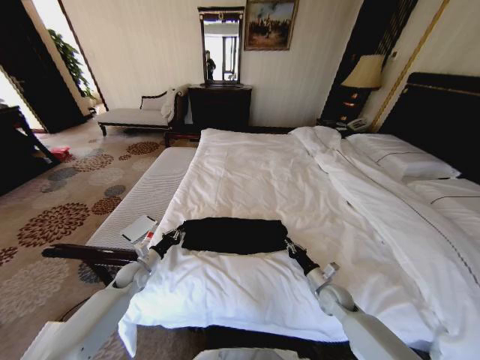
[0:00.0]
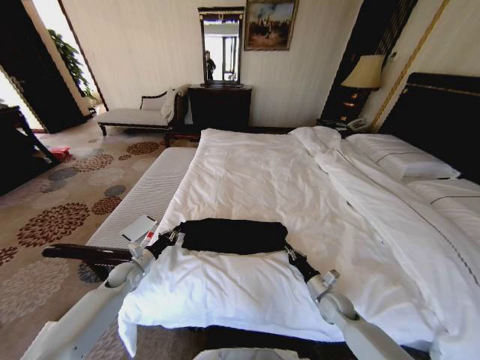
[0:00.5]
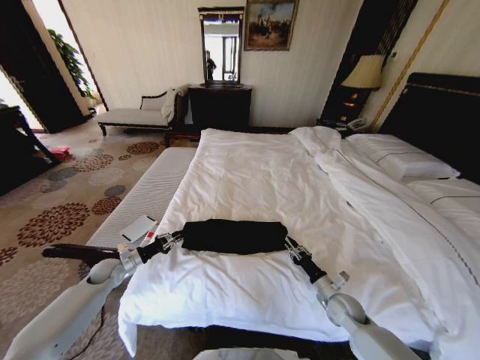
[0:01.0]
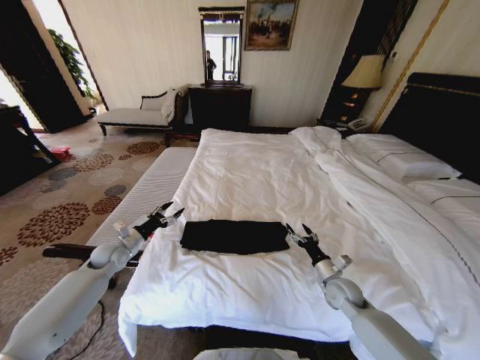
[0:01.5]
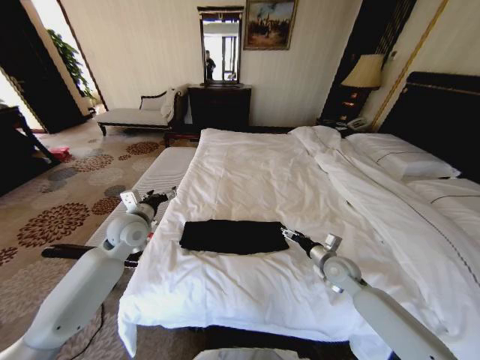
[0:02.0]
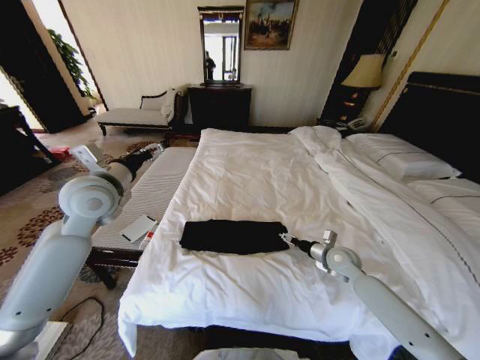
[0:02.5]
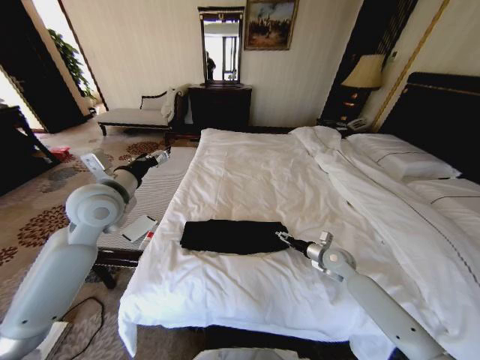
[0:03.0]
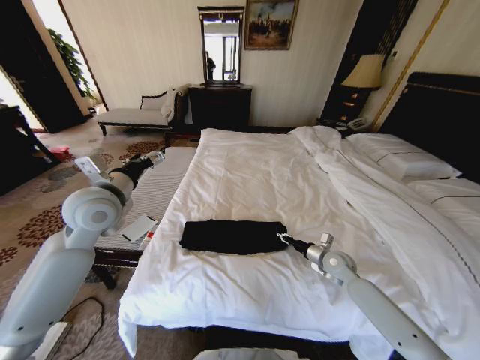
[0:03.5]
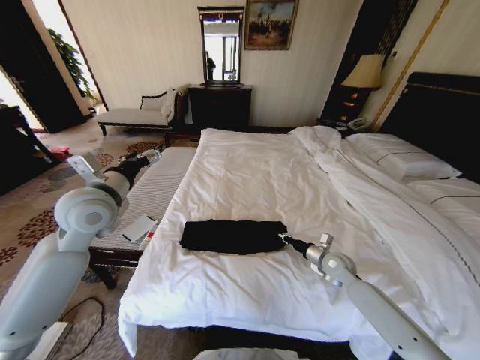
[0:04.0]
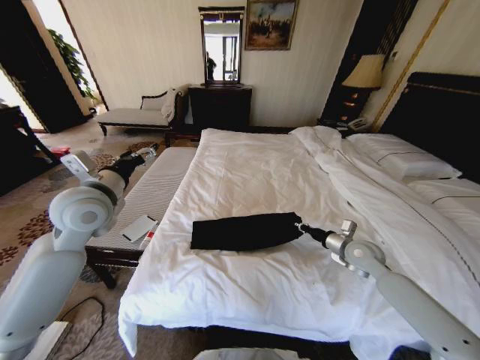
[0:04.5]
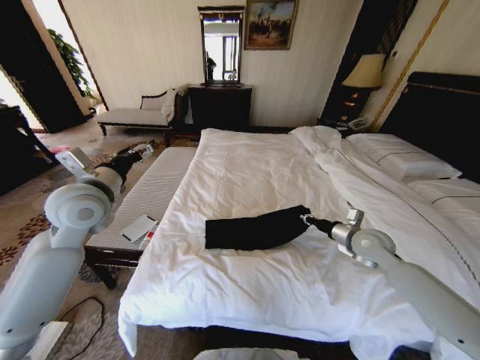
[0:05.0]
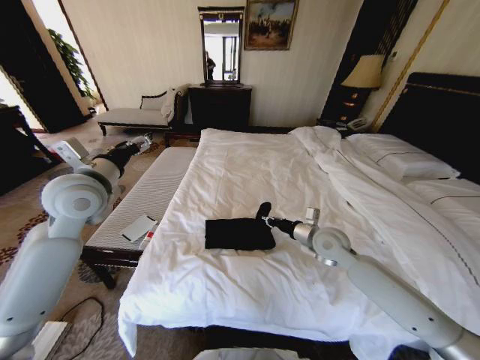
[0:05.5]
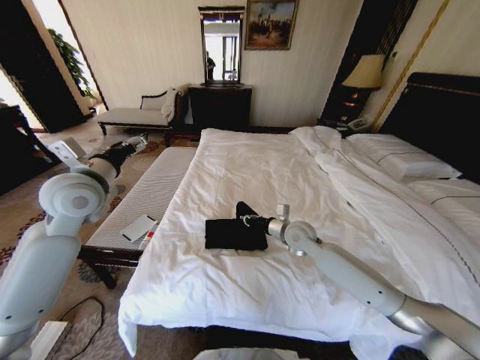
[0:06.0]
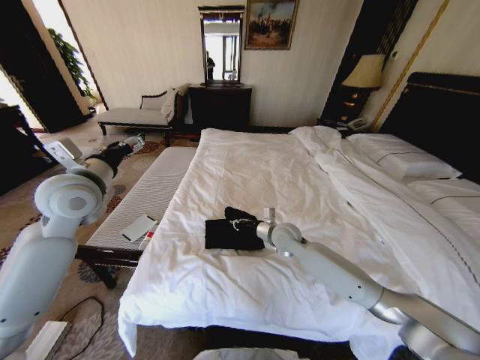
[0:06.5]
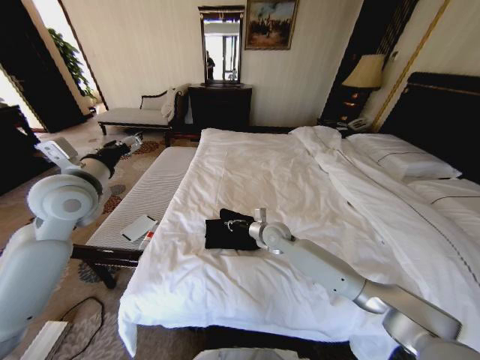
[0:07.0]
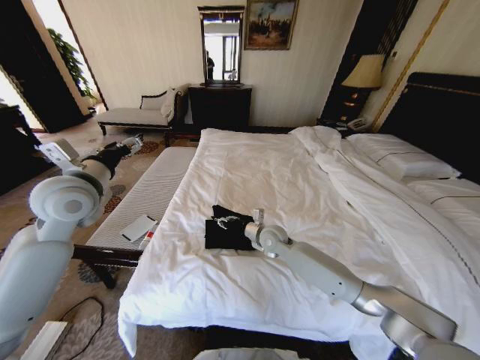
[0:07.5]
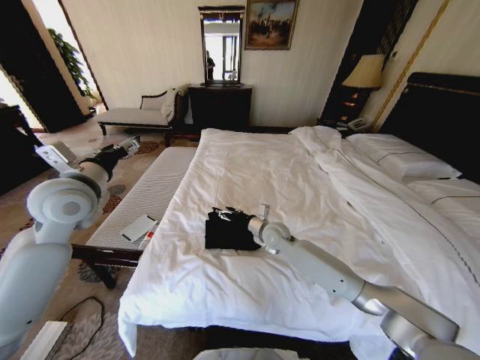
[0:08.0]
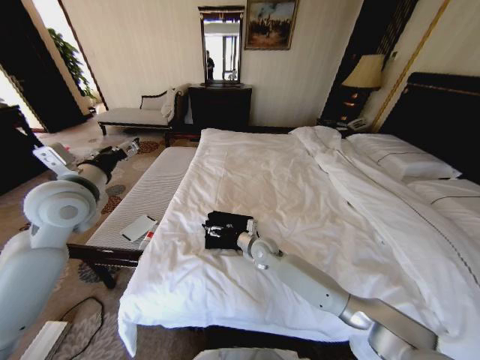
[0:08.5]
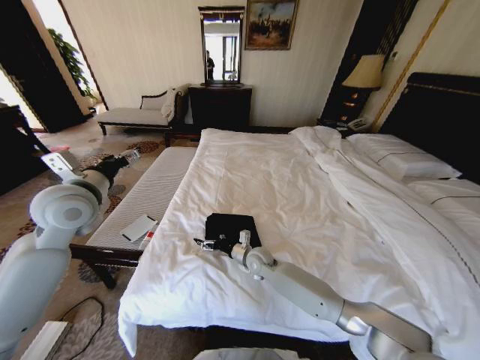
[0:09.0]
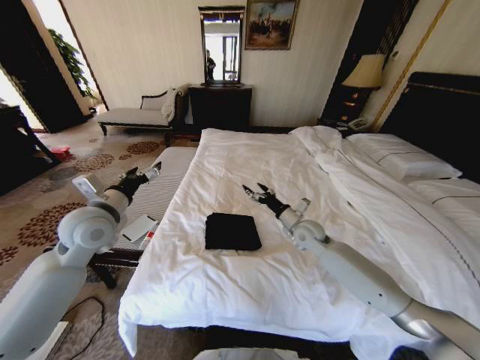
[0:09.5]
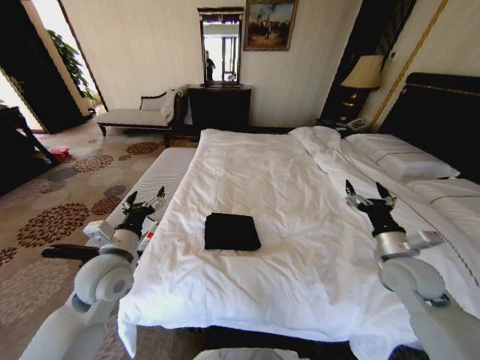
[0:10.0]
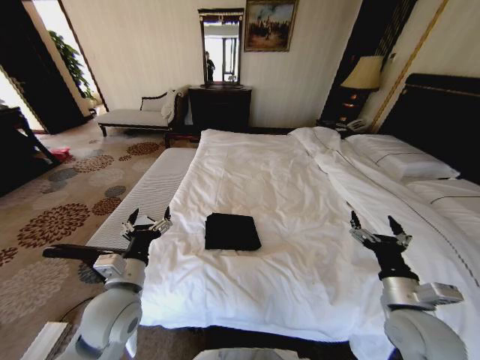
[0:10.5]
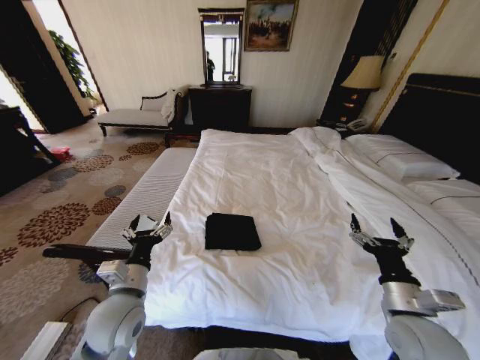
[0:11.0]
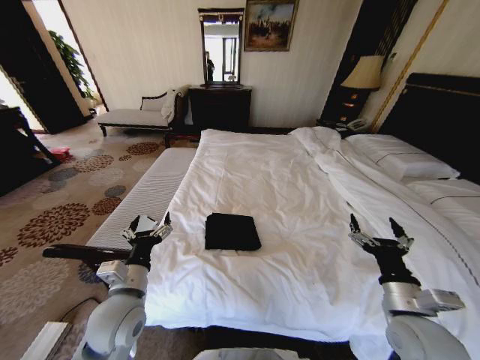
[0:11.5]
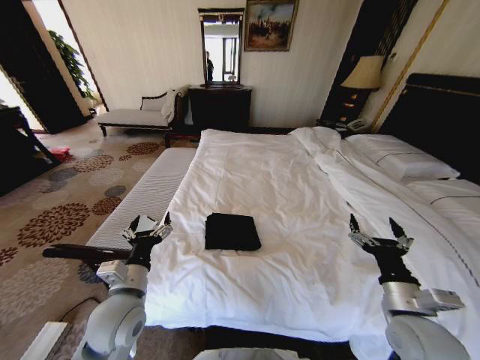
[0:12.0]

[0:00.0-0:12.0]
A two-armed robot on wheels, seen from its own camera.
Task of the whole recording: Fold the clothes on the bed.
0:00.0 to 0:02.0: The left gripper shifts some 25 cm upward, and opens up, while the right gripper travels upward by approximately 10 cm, and opens up.
0:02.0 to 0:04.0: The left gripper goes about 15 cm upward. Meanwhile the right gripper closes.
0:04.0 to 0:06.0: The right gripper travels to the left and upward by roughly 20 cm.
0:06.0 to 0:08.0: The right gripper heads to the left, covering approximately 5 cm, and opens its fingers.
0:08.0 to 0:10.0: The right gripper moves to the right and backward, about 30 cm. The left gripper travels downward and backward by about 15 cm.
0:10.0 to 0:12.0: The right gripper moves backward and to the left, about 15 cm, while the left gripper shifts approximately 5 cm backward.

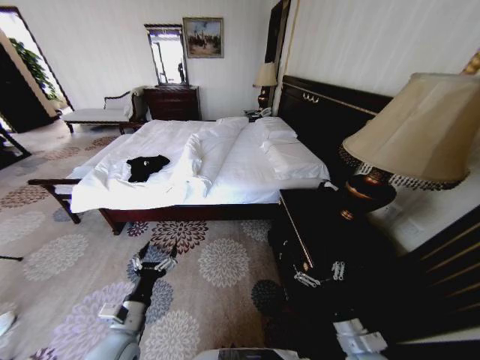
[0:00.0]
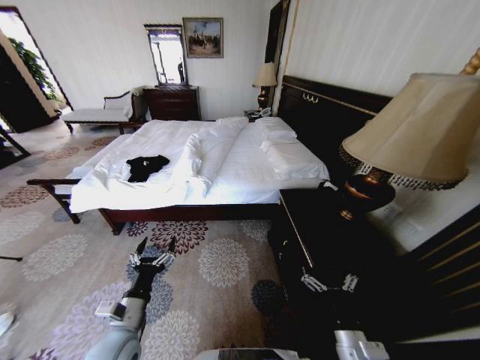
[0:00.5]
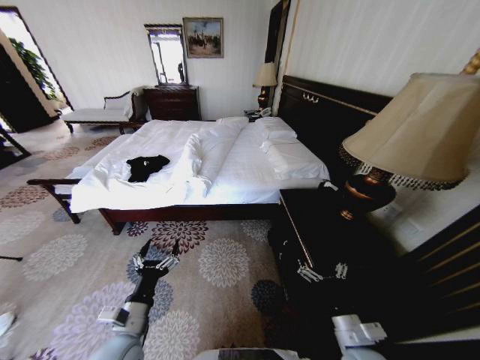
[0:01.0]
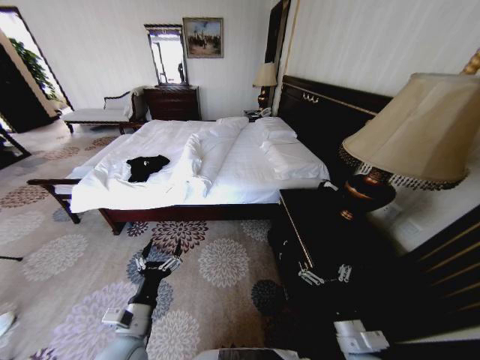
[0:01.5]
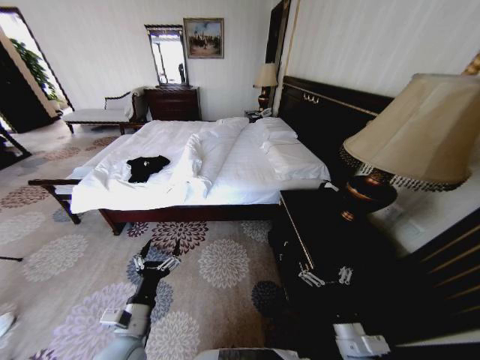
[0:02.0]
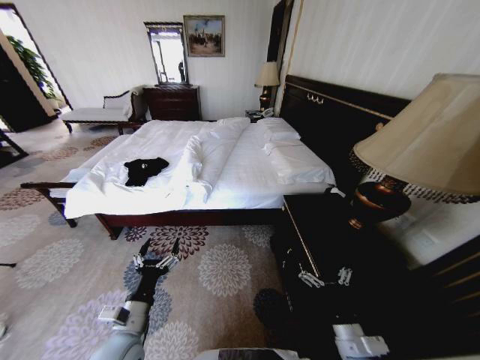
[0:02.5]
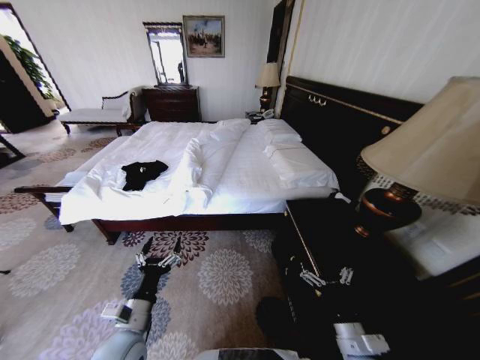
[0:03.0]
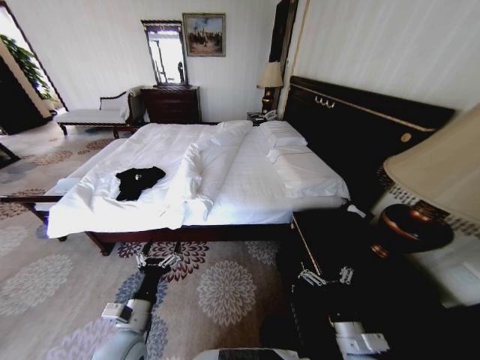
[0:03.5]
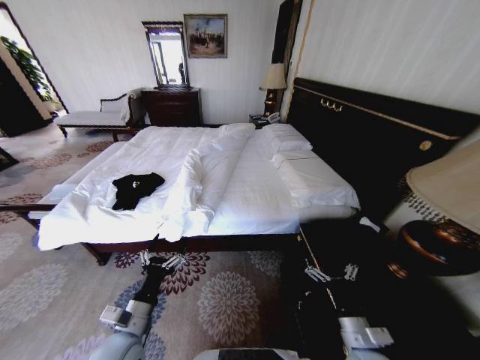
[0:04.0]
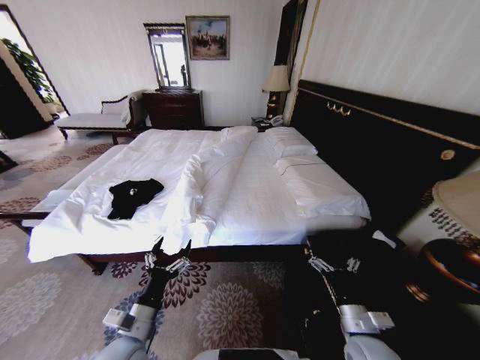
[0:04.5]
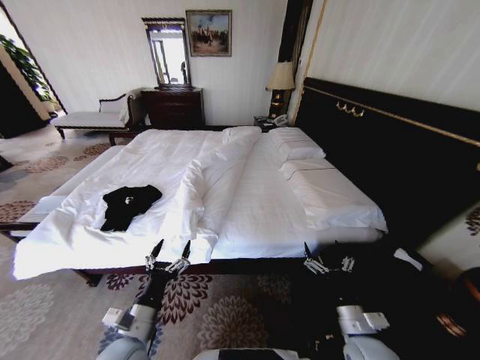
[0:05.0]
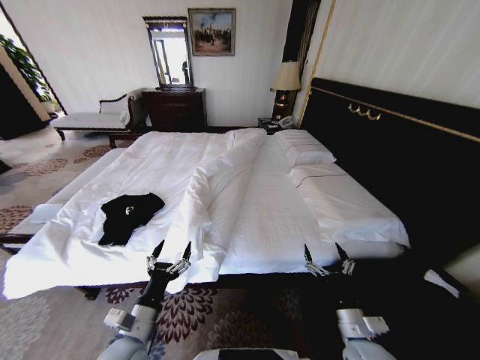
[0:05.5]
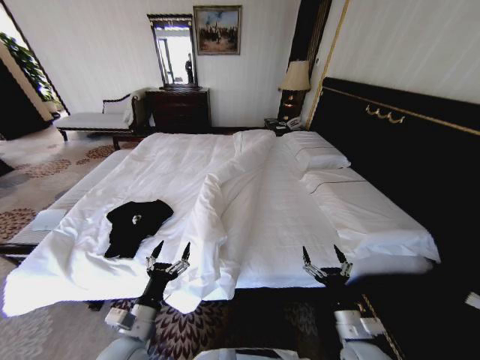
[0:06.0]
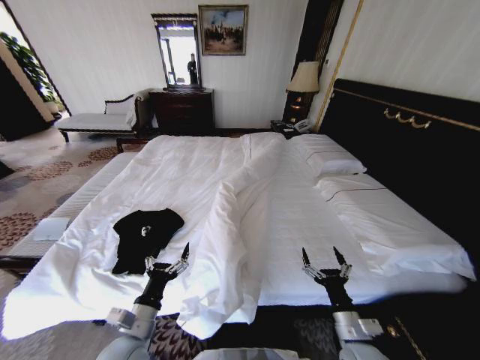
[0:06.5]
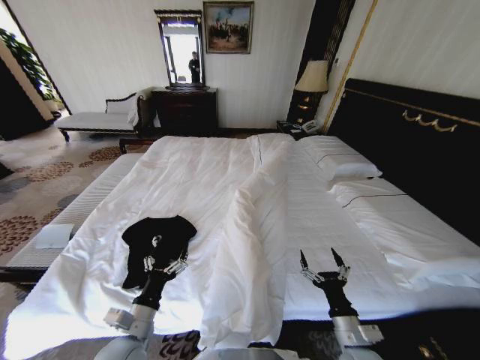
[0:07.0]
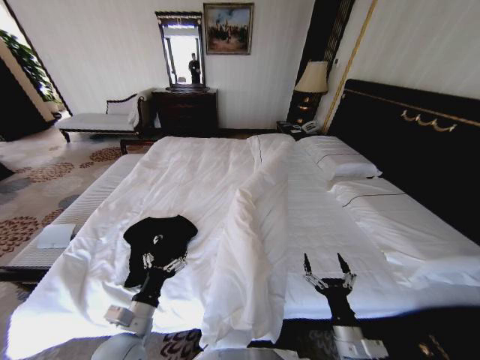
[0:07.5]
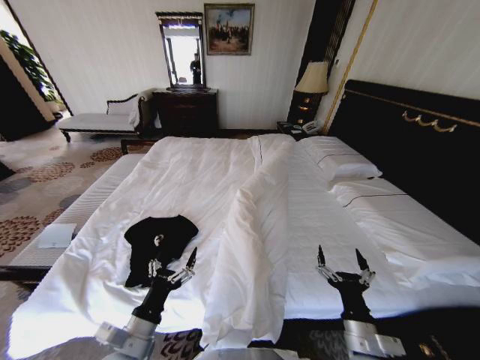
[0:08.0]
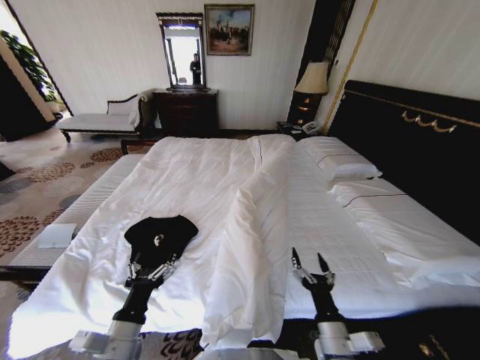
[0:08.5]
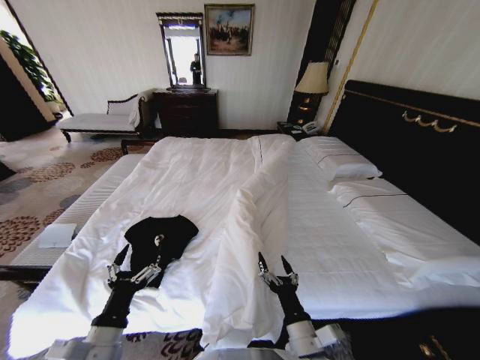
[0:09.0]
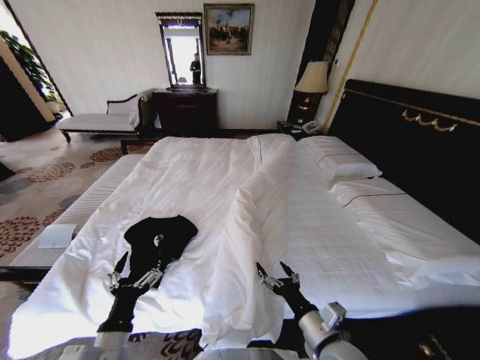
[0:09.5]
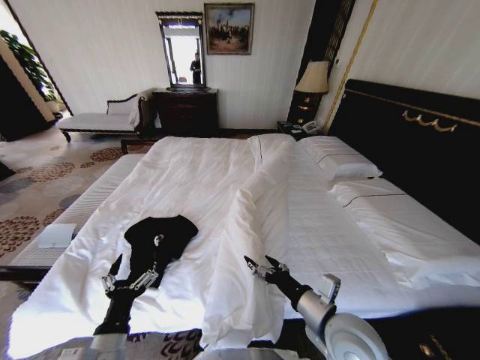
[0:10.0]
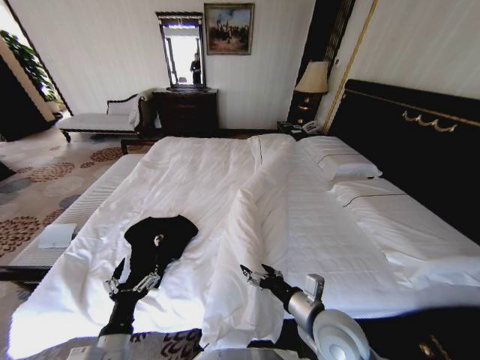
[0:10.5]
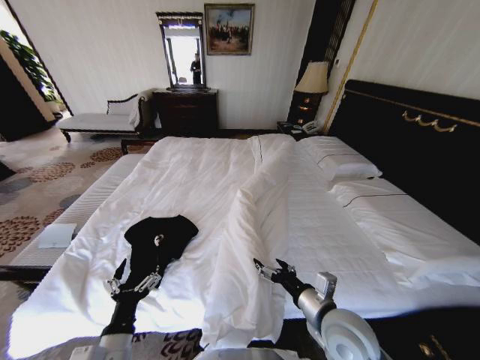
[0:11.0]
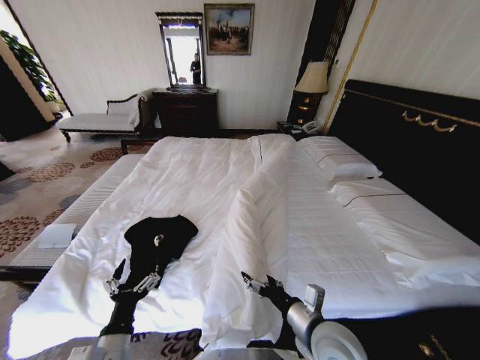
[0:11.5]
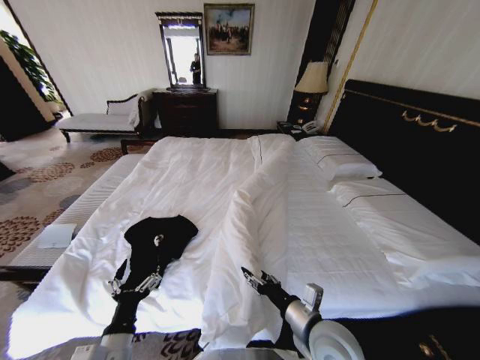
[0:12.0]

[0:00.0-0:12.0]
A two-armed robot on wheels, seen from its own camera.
Task of the whole recording: Fold the clothes on the bed.
0:08.0 to 0:10.0: The right gripper goes approximately 10 cm upward, to the left and forward.
0:10.0 to 0:12.0: The grippers stay close to where they were, moving slightly.

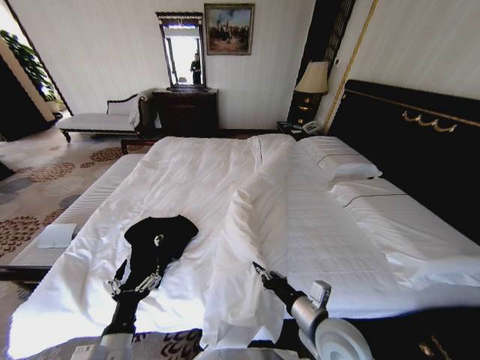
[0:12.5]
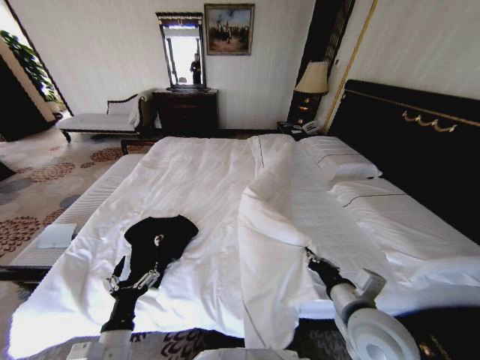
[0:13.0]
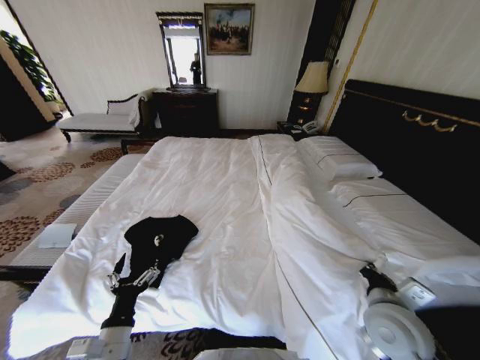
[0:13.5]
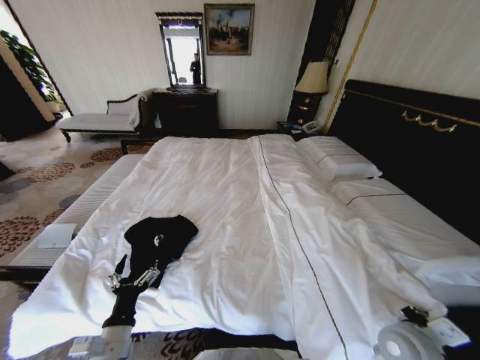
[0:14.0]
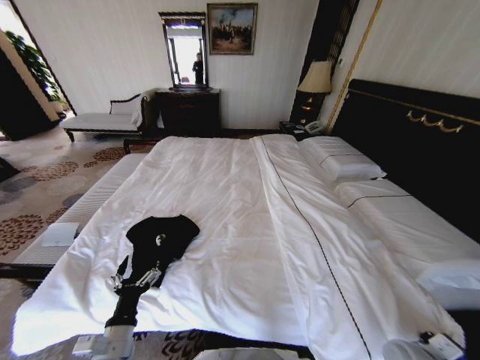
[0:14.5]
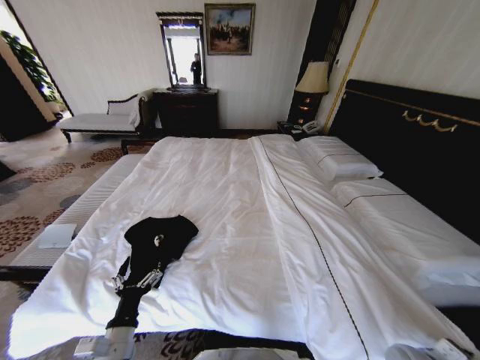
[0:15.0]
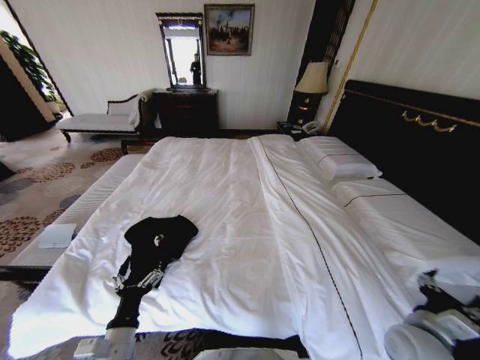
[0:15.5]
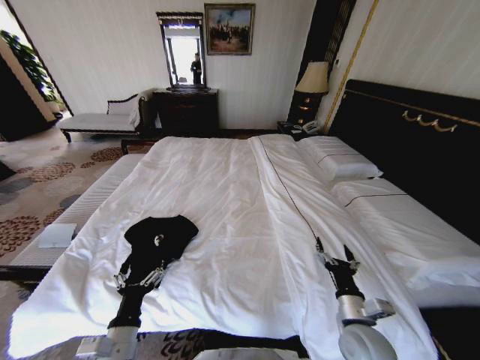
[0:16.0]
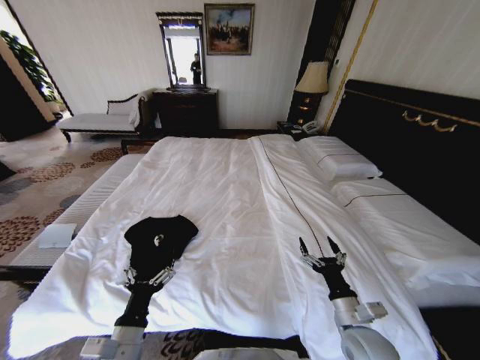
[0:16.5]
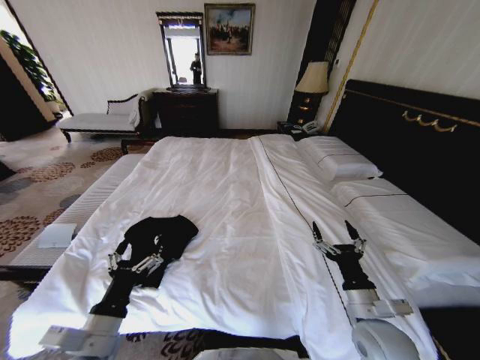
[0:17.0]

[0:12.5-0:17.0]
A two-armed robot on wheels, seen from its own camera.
Task of the whole recording: Fold the clothes on the bed.
0:12.5 to 0:14.5: The right gripper heads to the right and downward, covering roughly 25 cm.
0:14.5 to 0:17.0: The left gripper moves upward, about 10 cm, while the right gripper is displaced to the left and upward by some 15 cm, and opens its fingers.
